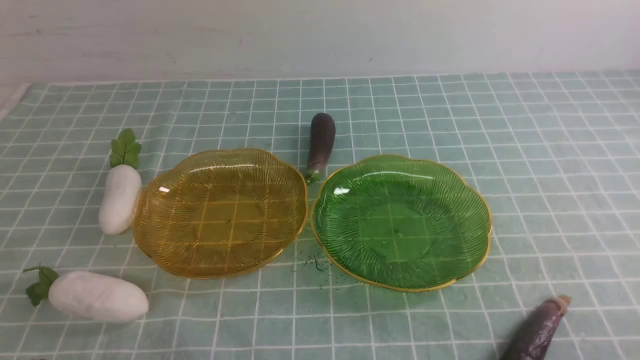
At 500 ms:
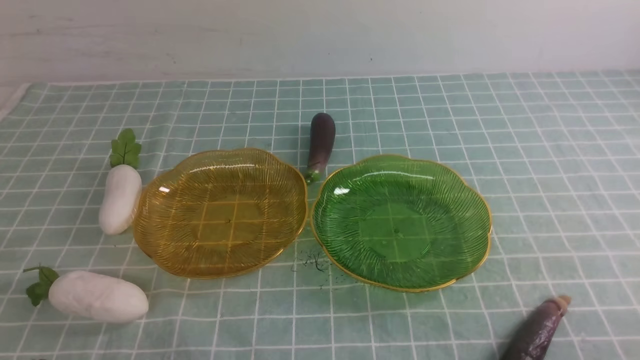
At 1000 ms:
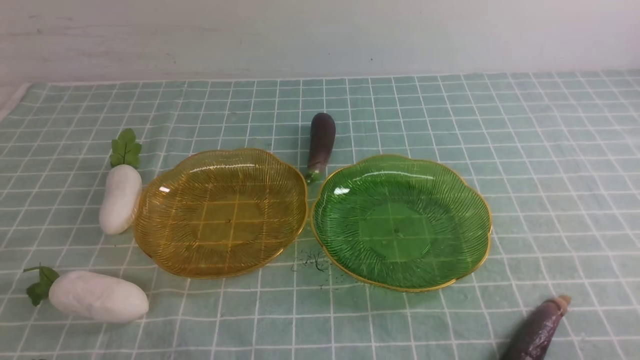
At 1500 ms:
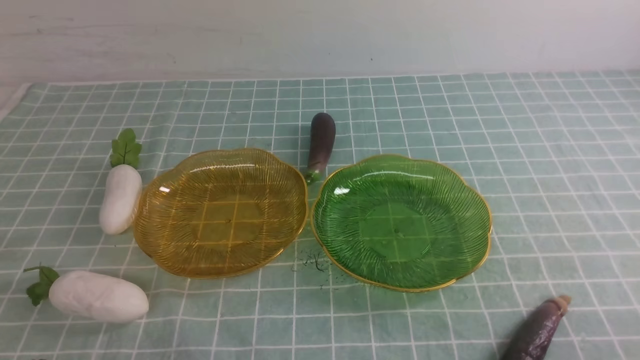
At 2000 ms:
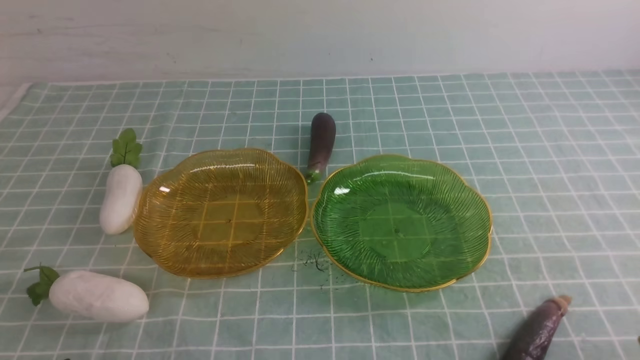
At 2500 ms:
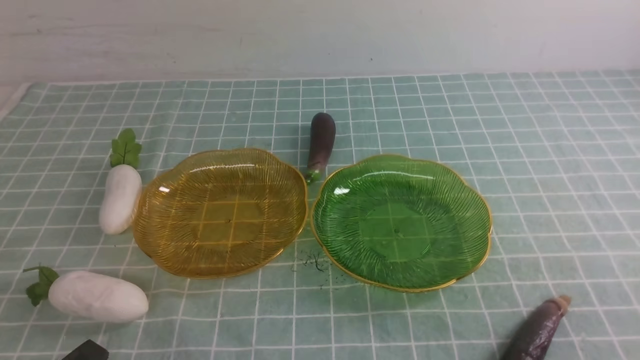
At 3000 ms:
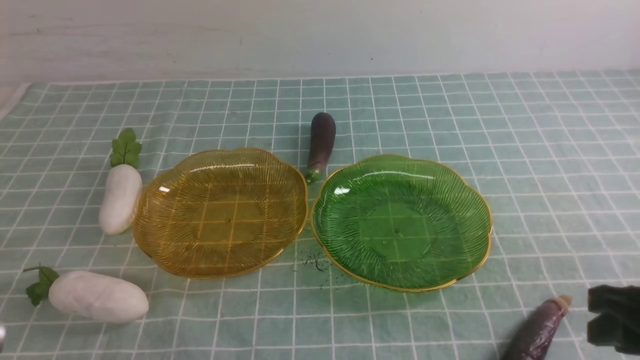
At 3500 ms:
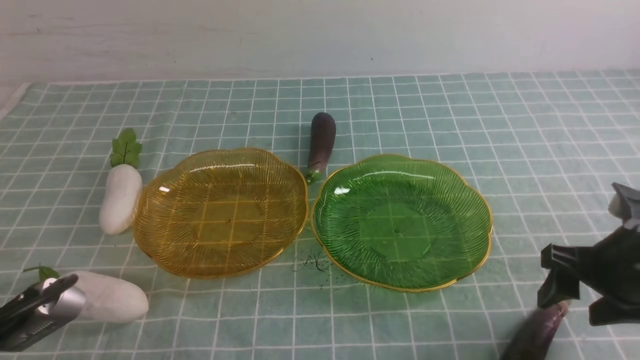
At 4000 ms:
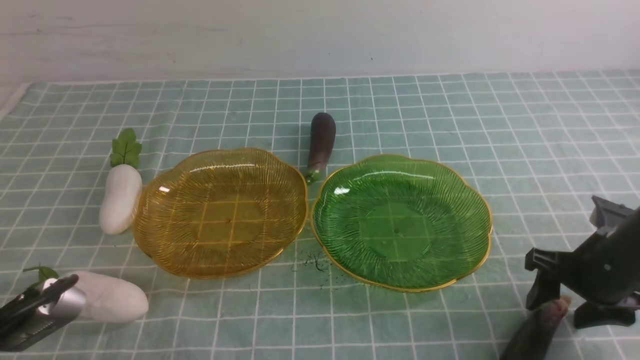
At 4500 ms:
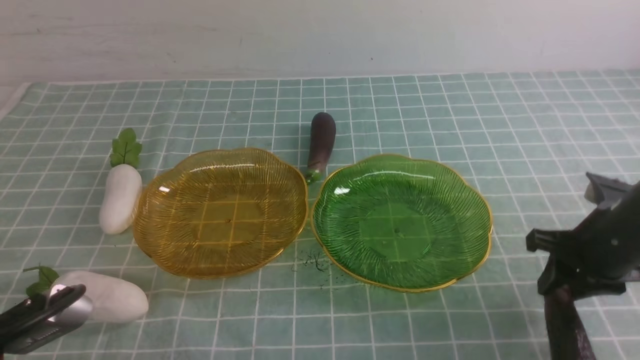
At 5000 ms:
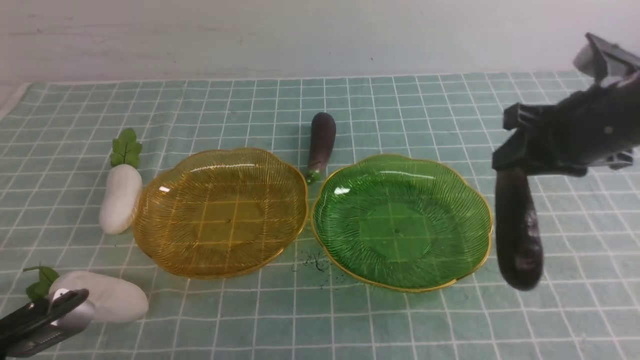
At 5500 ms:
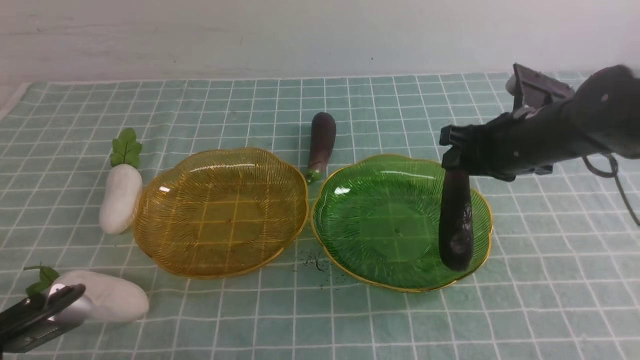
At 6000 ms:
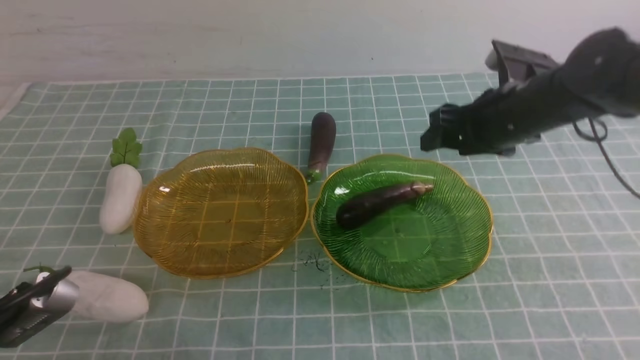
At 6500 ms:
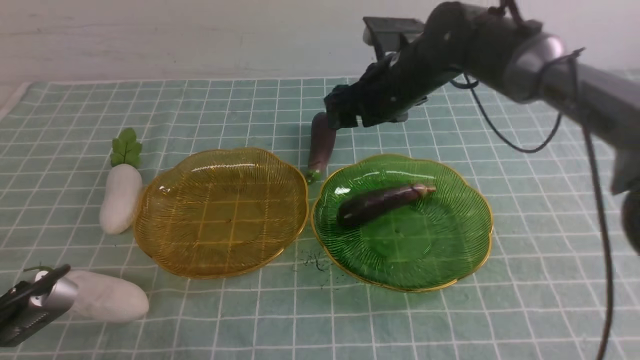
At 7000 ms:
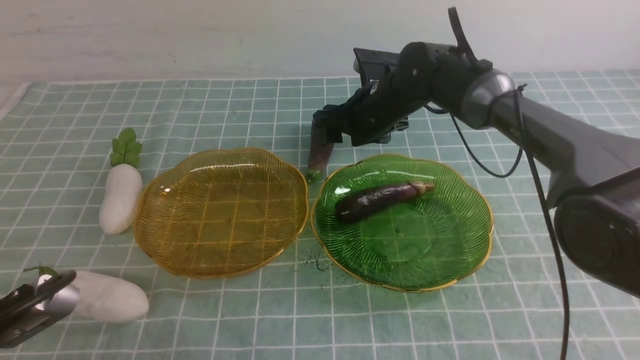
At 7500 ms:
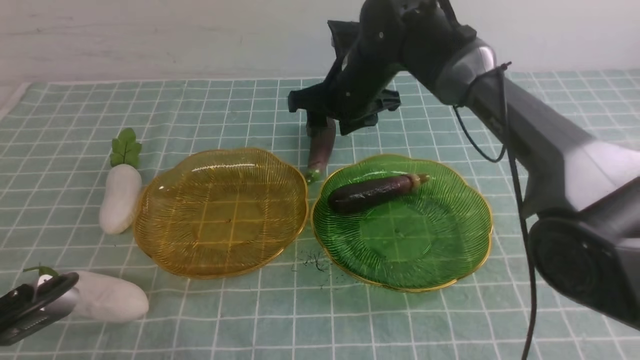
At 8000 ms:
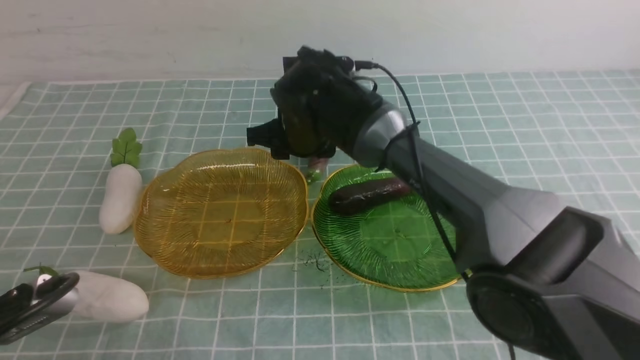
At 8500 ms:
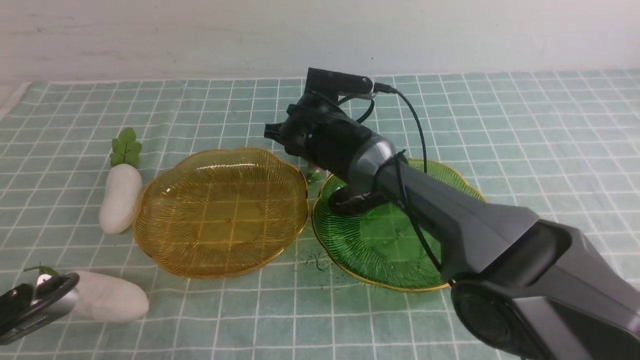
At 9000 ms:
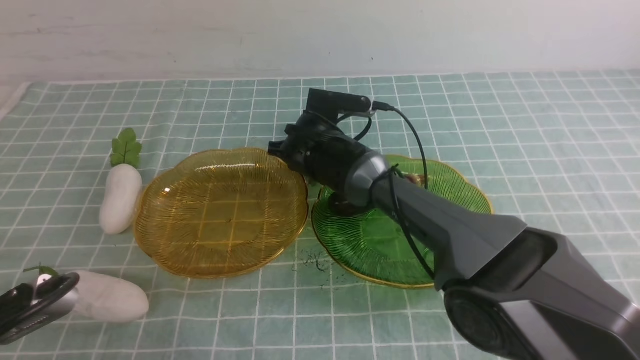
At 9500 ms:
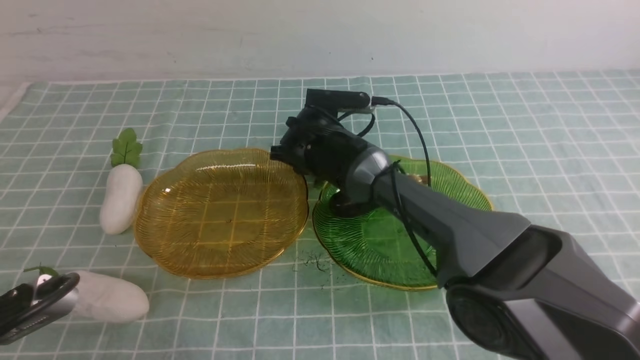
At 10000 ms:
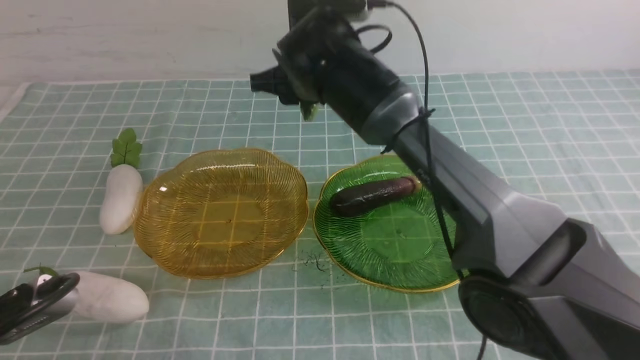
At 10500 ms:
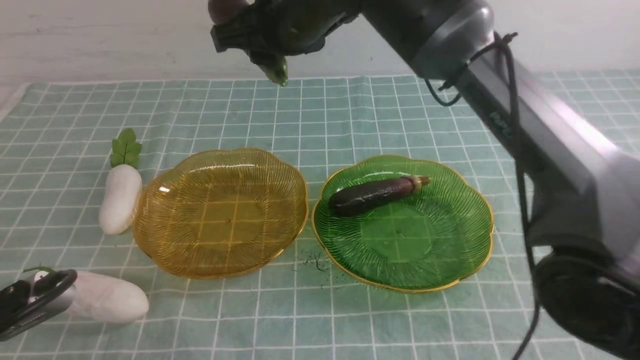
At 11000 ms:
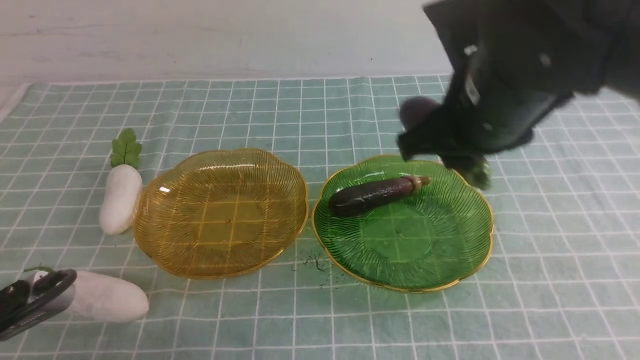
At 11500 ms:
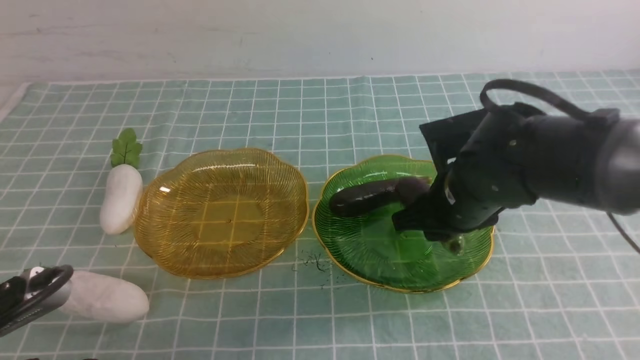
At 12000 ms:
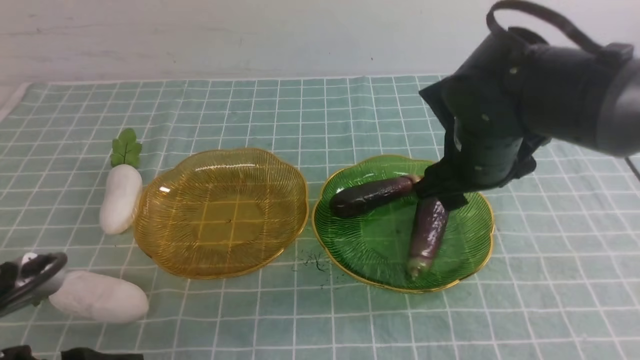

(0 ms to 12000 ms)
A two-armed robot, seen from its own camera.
Step, 0 ms - 12000 ms: use the right arm to grab an eggplant and put it into the right plate.
2000 ms - 4000 ms: The right gripper heads forward, covering approximately 25 cm, and opens. Meanwhile the left gripper is displaced upward by about 5 cm.
4000 ms - 6000 ms: The left gripper opens up, while the right gripper travels forward, to the left and upward by approximately 20 cm, and closes and opens again.
6000 ms - 8000 ms: The right gripper shifts approximately 20 cm to the left.
8000 ms - 10000 ms: The right gripper reaches approximately 10 cm downward, then returns.
10000 ms - 12000 ms: The right gripper heads to the right and backward, covering roughly 20 cm, and opens up.

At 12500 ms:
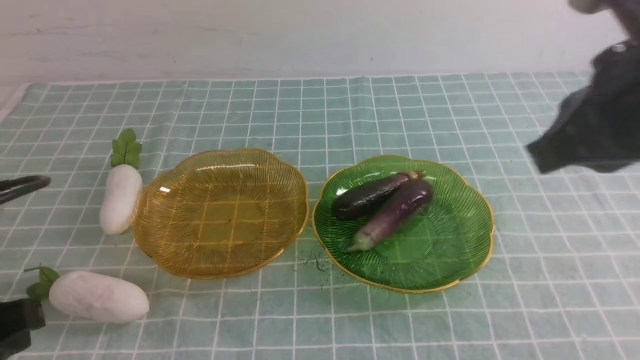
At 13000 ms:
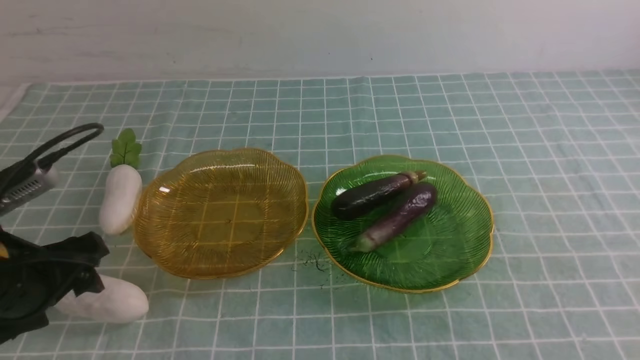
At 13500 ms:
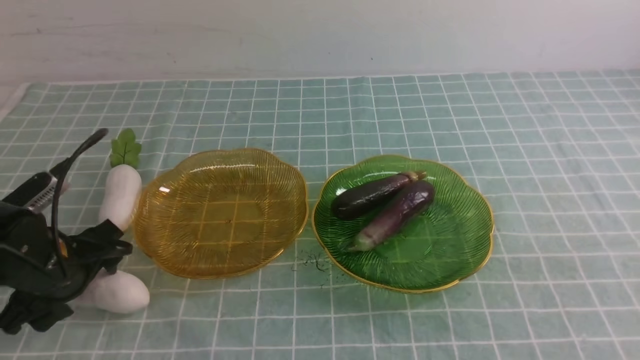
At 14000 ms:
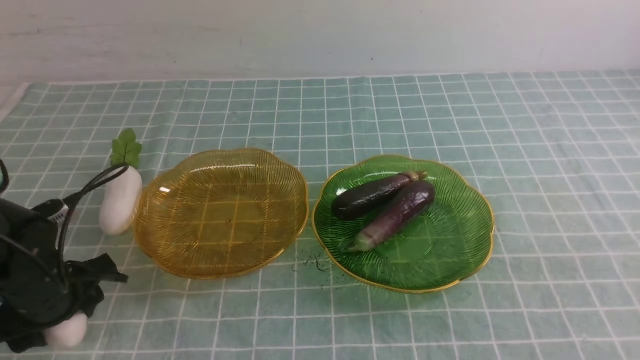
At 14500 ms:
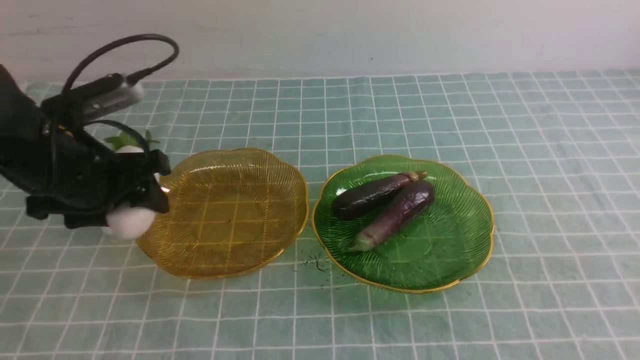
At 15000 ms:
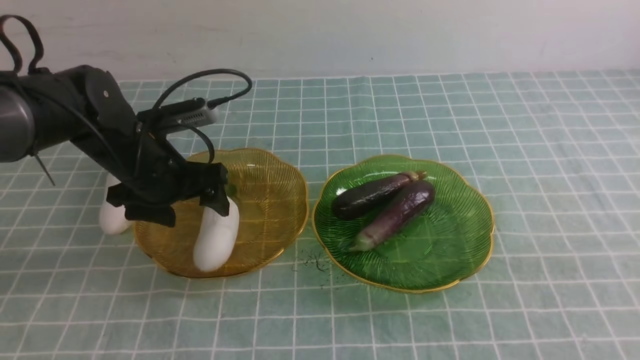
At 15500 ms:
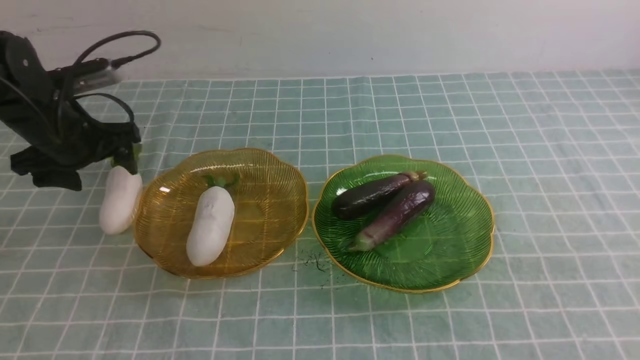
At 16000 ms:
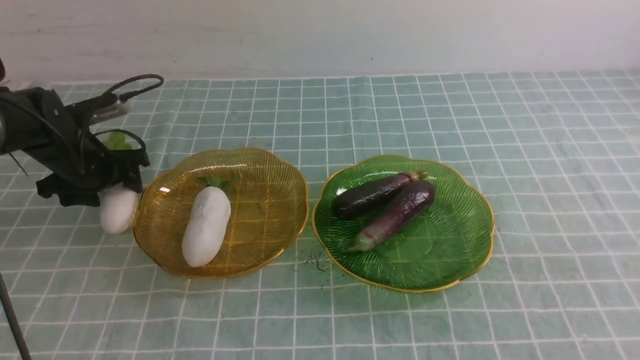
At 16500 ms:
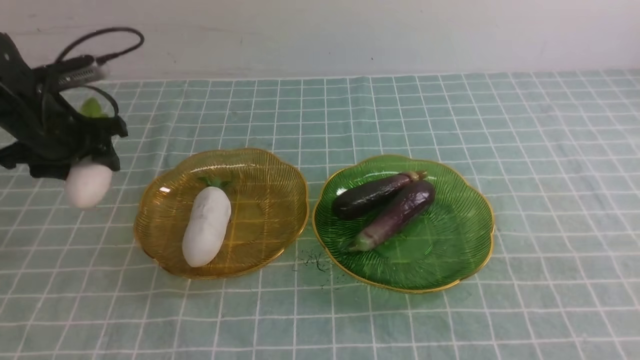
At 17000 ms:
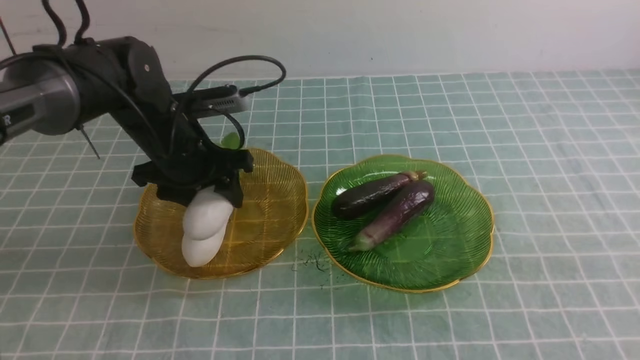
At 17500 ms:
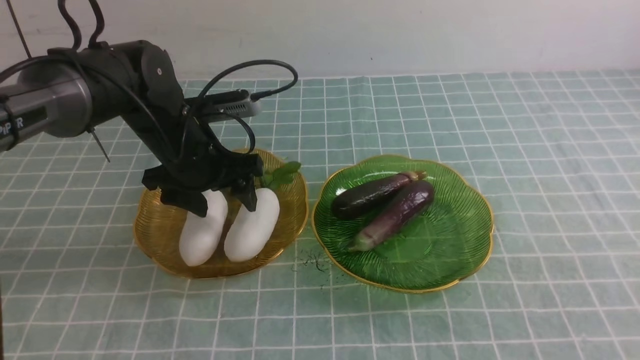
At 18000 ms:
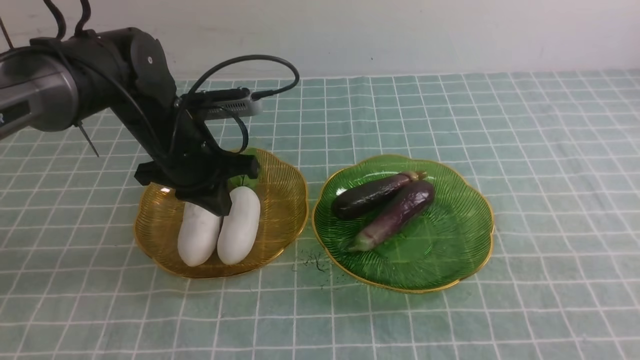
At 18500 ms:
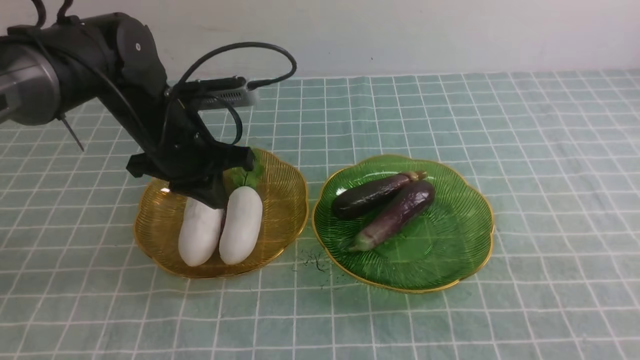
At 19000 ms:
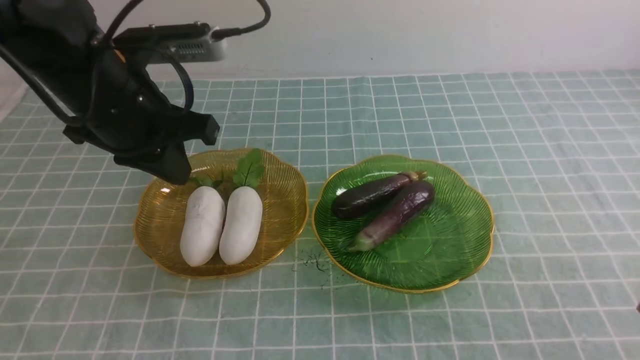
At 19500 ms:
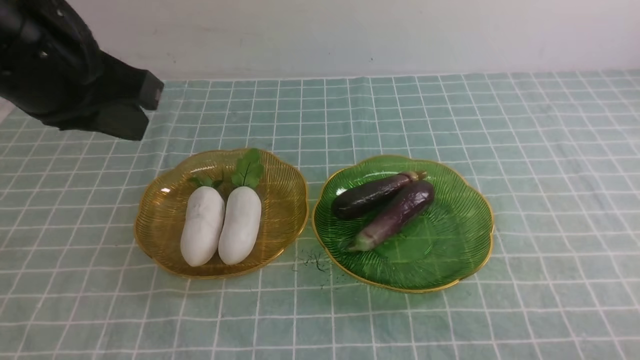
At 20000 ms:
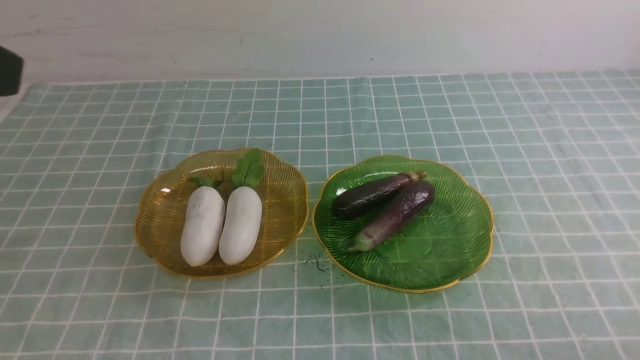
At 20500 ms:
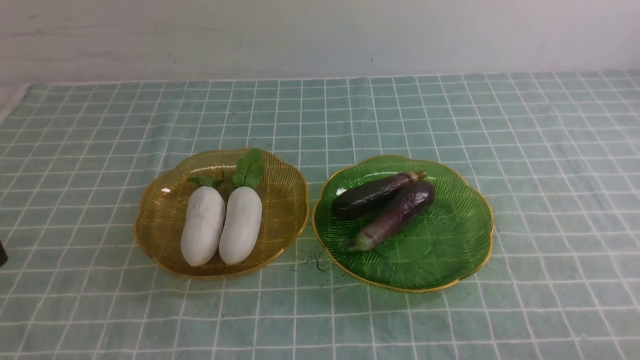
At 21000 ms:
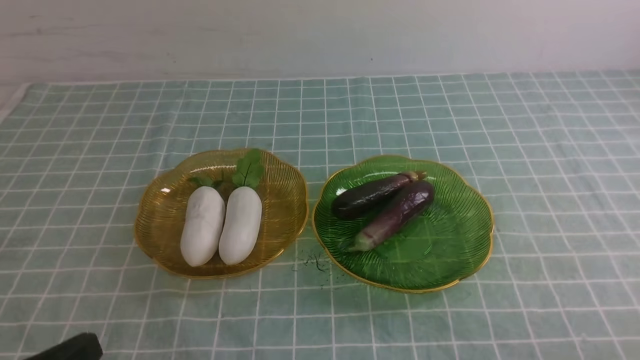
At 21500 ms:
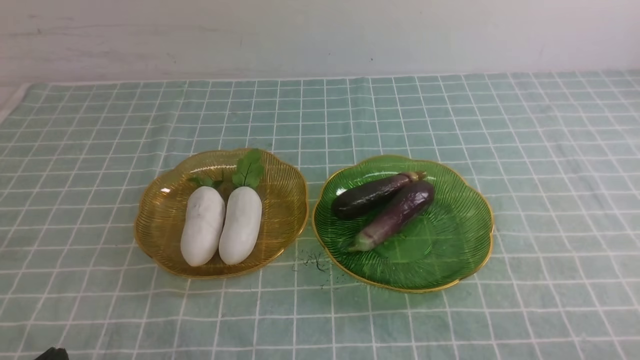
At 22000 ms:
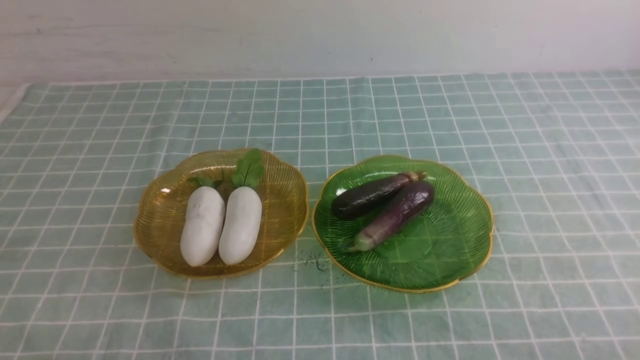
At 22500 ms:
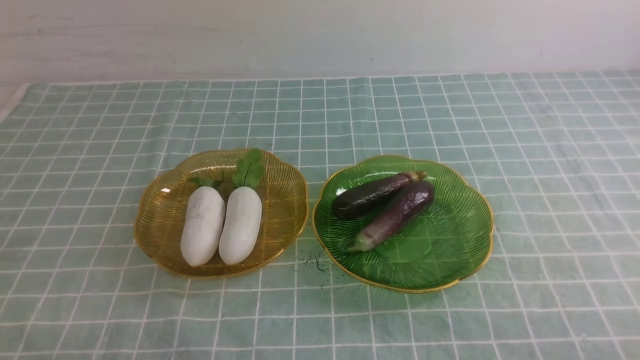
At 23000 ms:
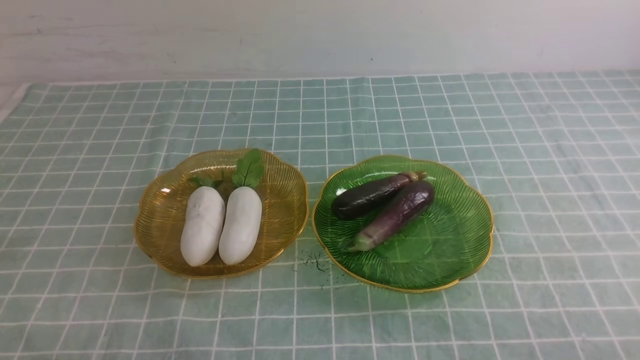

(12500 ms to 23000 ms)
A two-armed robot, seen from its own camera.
Step, 12500 ms - 17000 ms: use the left arm to grab a radish and put it into the left plate.
12500 ms - 14500 ms: The right gripper moves backward and to the right, about 15 cm. The left gripper shifts roughly 20 cm forward.
14500 ms - 16500 ms: The left gripper shifts roughly 15 cm forward and to the left.
16500 ms - 19000 ms: The left gripper heads to the right, upward and backward, covering some 20 cm, and closes. Meanwhile the right gripper goes about 10 cm downward.
19000 ms - 21000 ms: The left gripper goes approximately 25 cm backward.
21000 ms - 23000 ms: The left gripper heads downward, covering approximately 10 cm.
